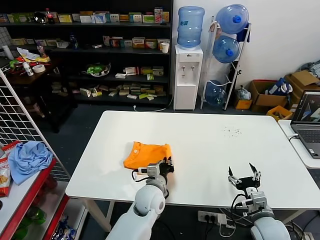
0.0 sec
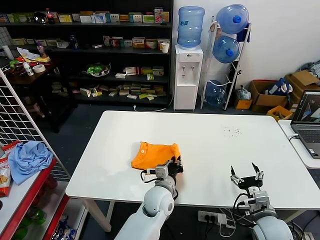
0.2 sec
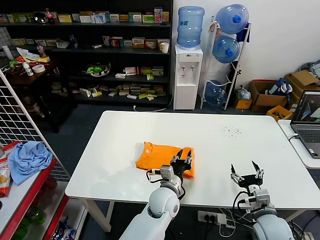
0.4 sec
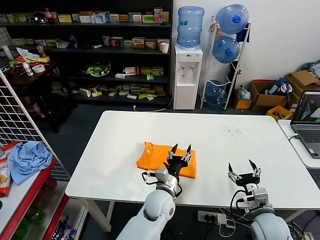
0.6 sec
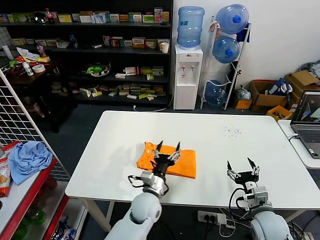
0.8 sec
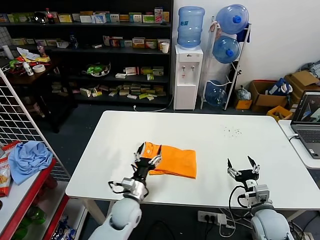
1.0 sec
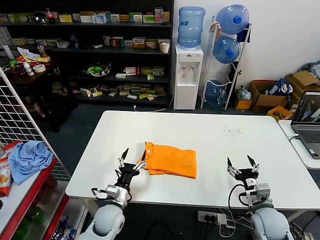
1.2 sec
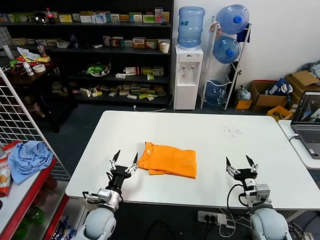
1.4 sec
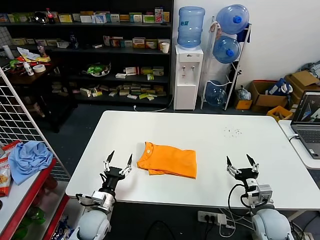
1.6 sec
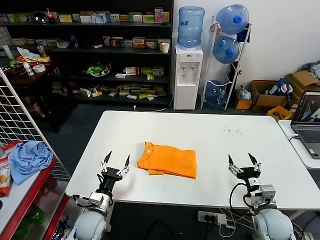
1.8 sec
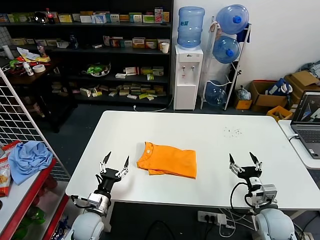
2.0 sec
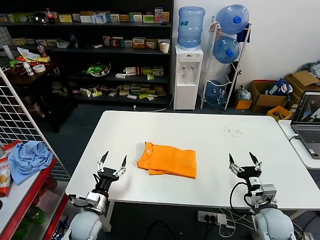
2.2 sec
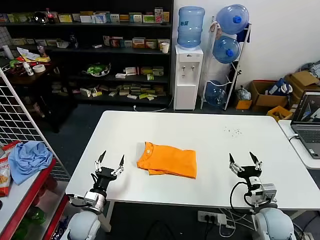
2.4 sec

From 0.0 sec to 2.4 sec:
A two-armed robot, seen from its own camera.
Task of the whole recording: fold and organize the clothes.
From 0.0 sec to 1.2 sec: The left gripper heads to the left and downward, covering roughly 15 cm, and opens its fingers.
From 1.2 sec to 2.4 sec: The left gripper shifts approximately 10 cm to the left.
